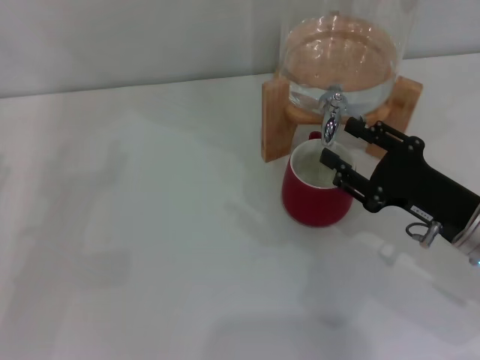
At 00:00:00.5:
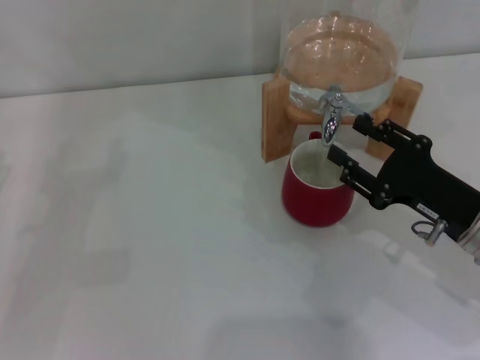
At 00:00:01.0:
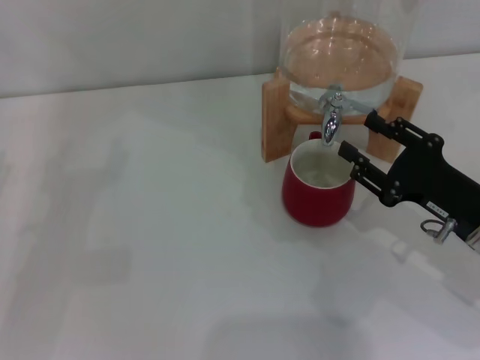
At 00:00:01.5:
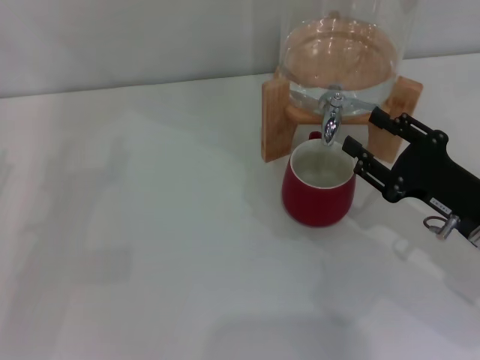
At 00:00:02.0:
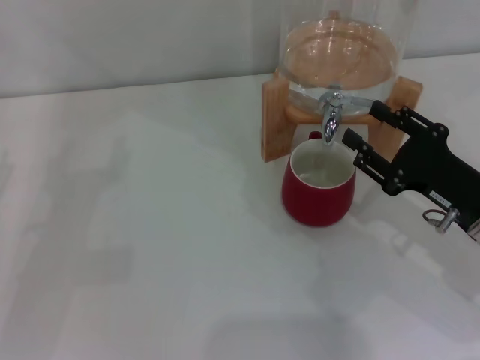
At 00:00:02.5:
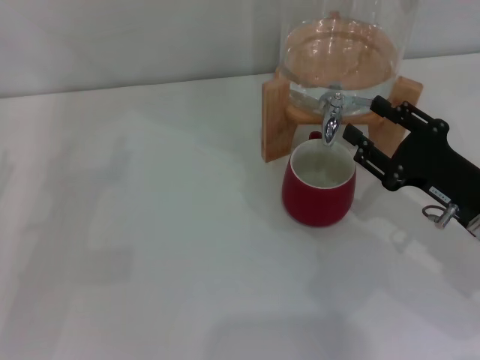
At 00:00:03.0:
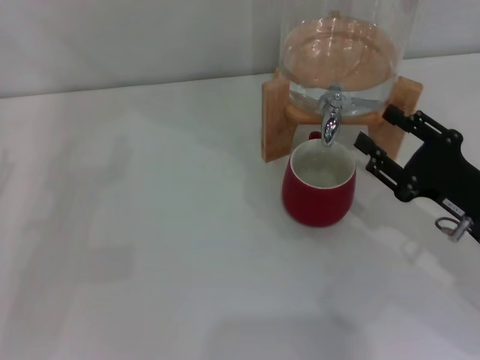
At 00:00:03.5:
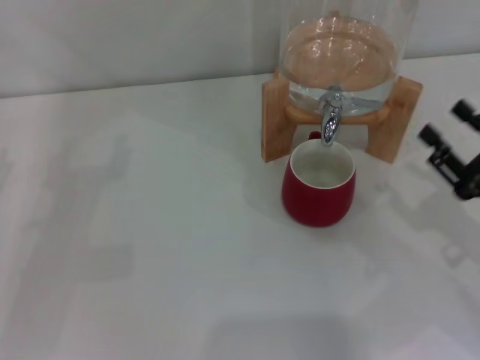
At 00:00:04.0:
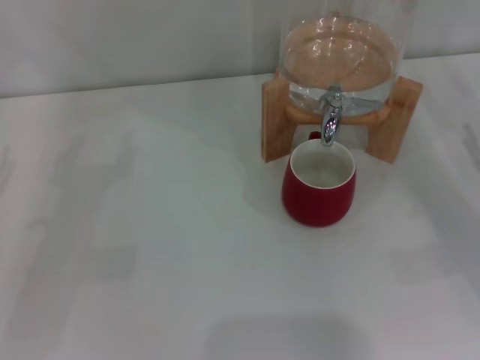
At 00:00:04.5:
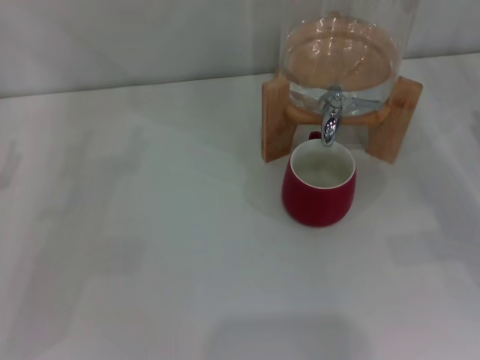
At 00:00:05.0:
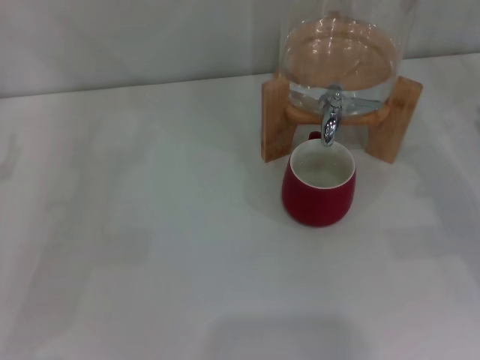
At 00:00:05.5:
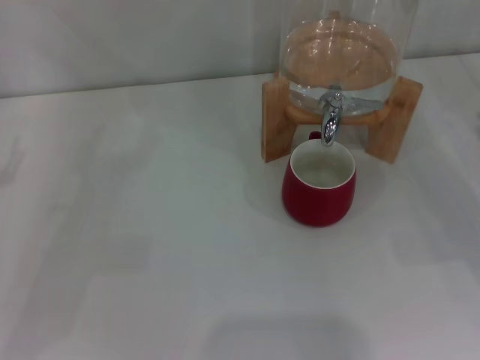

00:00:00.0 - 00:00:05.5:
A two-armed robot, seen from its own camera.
Task of the whole recording: the left gripper pick up the red cup and place it horizontally under the faucet, the right gripper turn on the faucet to fill the cup, and then turn off the faucet.
Step, 00:00:00.0 - 00:00:02.5: Close the dispenser valve with the right gripper.
00:00:00.0 - 00:00:02.0: There are only small adjustments of the grippers.
00:00:02.0 - 00:00:03.5: The right gripper shifts by about 5 cm.
00:00:03.5 - 00:00:05.5: The right gripper heads to the right and forward, covering some 10 cm.
